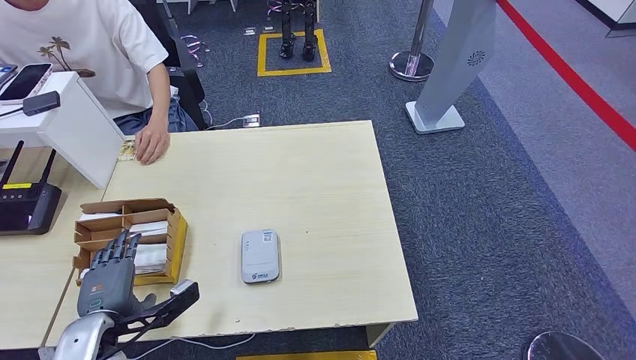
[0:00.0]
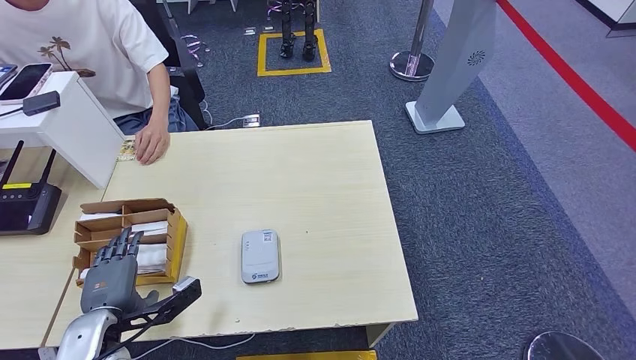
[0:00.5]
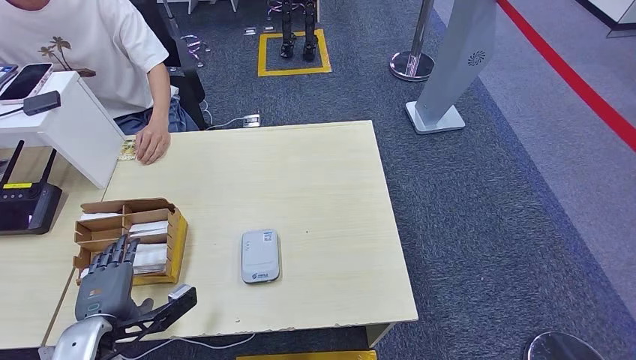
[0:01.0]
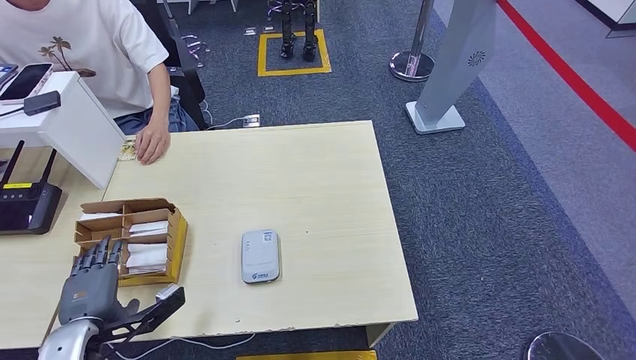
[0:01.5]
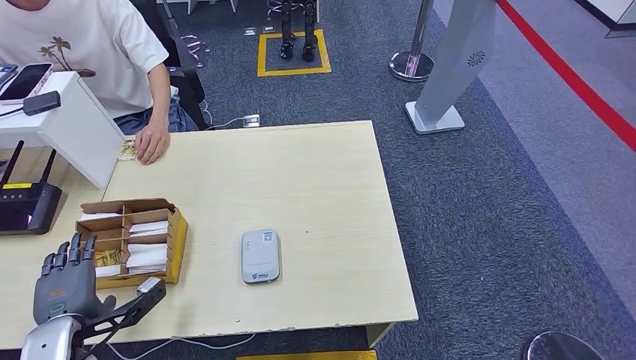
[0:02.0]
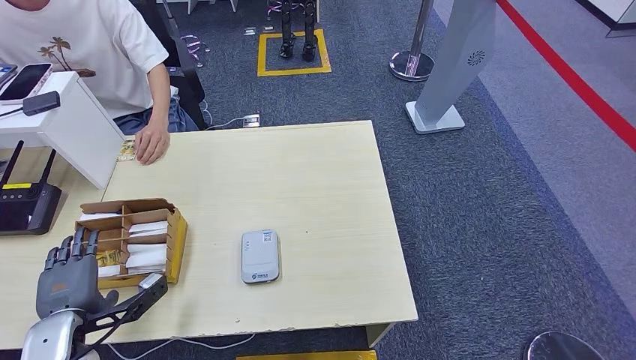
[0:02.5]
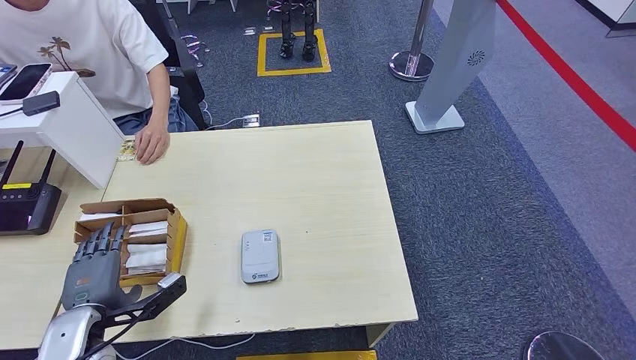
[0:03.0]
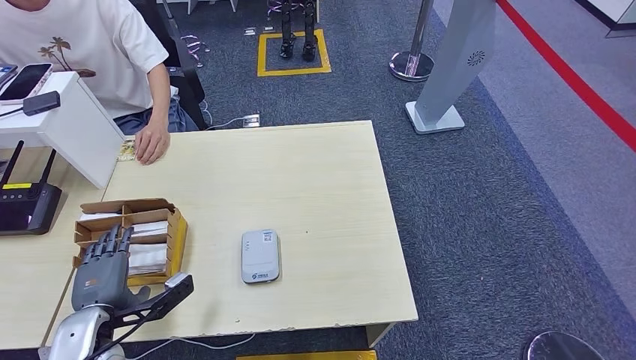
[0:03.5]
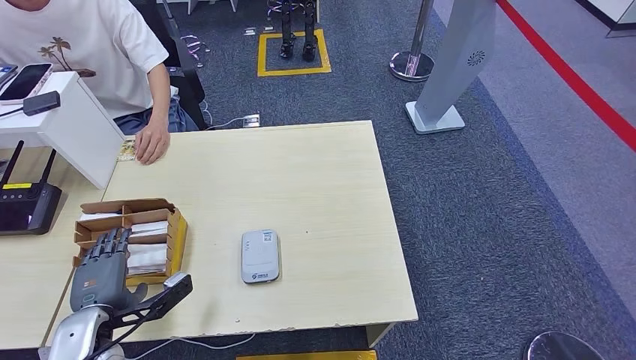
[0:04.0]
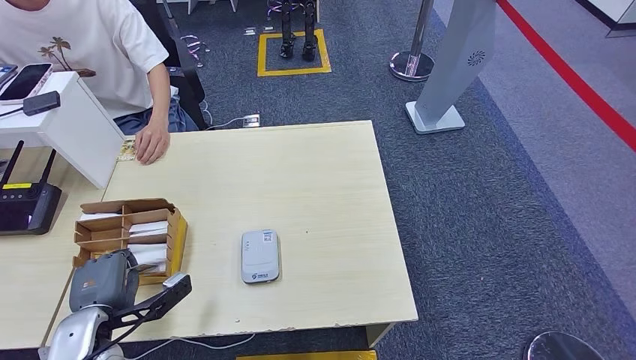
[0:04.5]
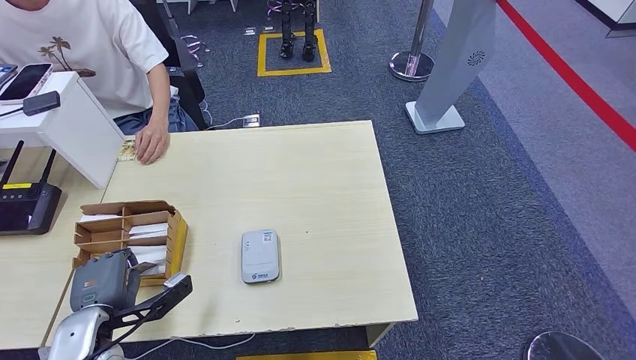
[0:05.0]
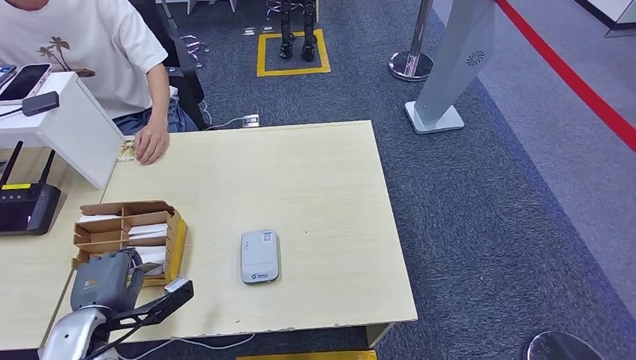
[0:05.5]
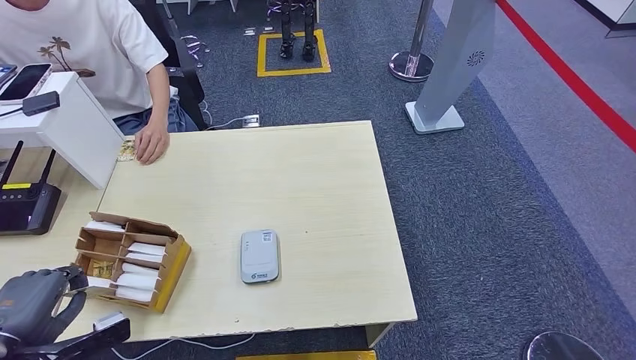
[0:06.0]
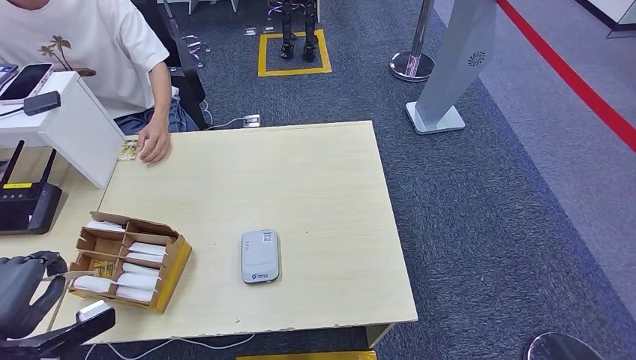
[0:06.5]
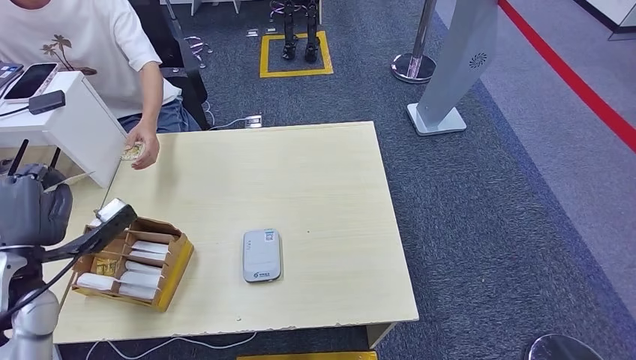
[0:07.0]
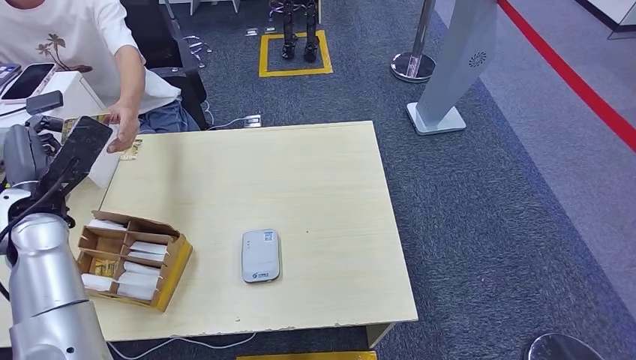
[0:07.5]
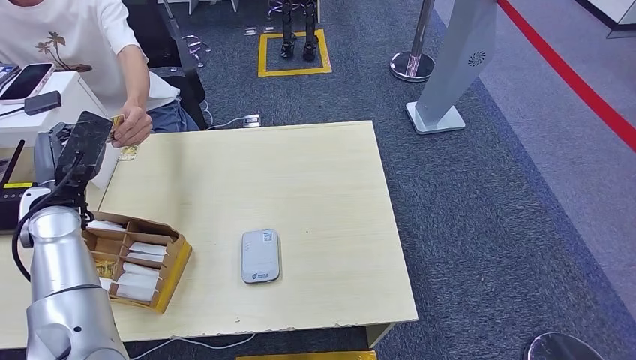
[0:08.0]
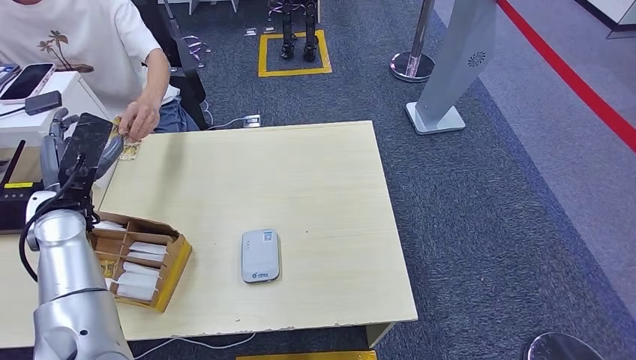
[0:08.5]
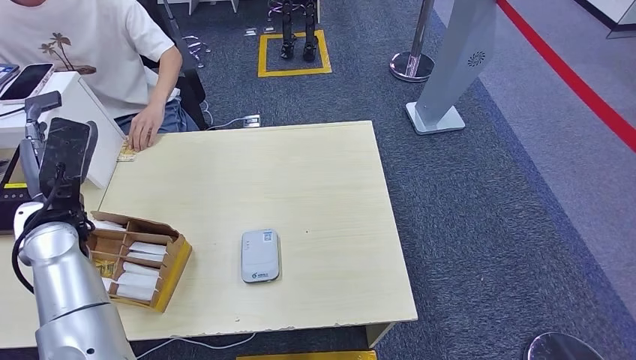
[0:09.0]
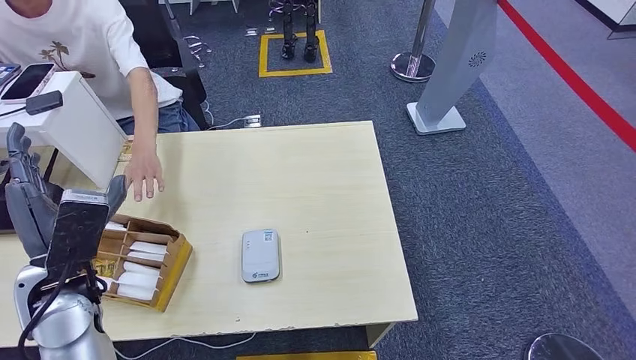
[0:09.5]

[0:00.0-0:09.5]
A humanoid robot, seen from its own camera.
Step, 0:00.0 to 0:06.0: Pick up the room key from the key card box.
Step, 0:06.5 to 0:09.5: Hand the room key to the person.
0:00.0 to 0:04.0: There are only small adjustments of the hands.
0:04.0 to 0:05.5: The two hands keep their place.
0:05.5 to 0:07.5: The left hand travels upward and forward by some 20 cm.
0:07.5 to 0:09.5: The left hand moves backward and to the right, roughly 15 cm.
